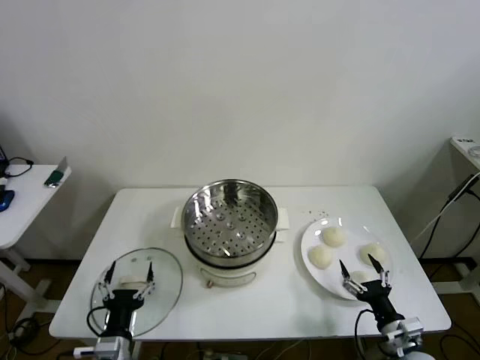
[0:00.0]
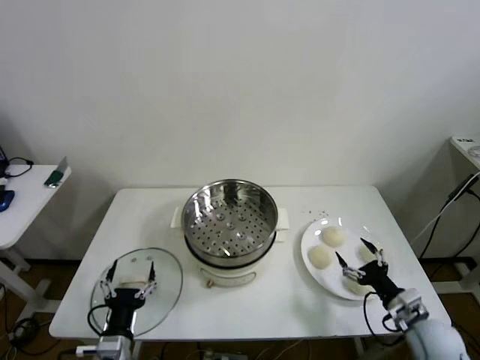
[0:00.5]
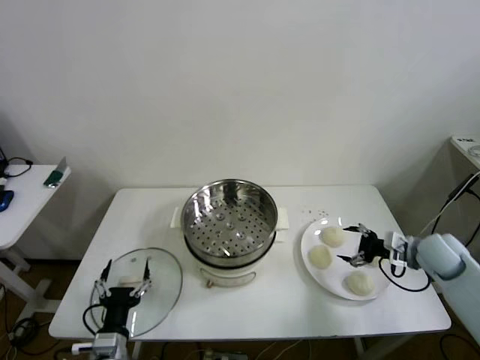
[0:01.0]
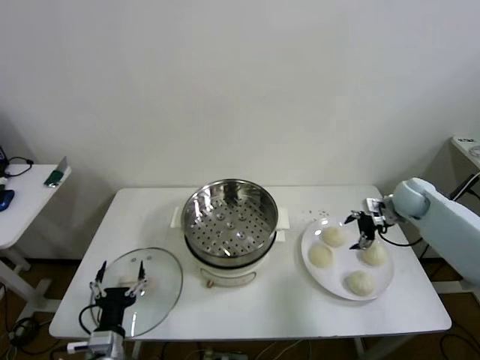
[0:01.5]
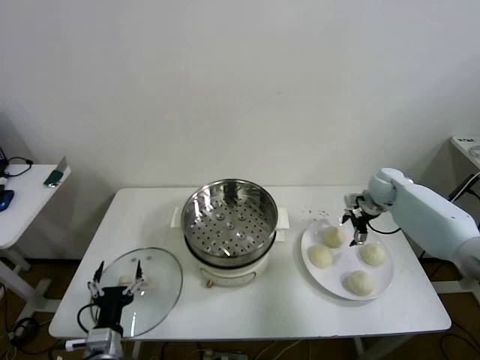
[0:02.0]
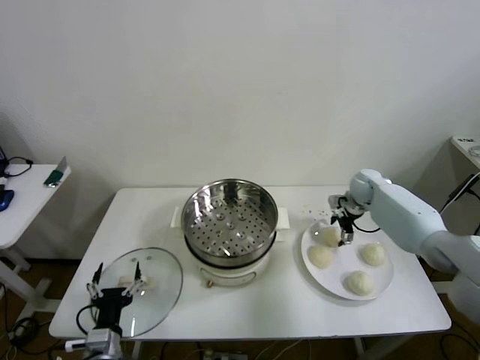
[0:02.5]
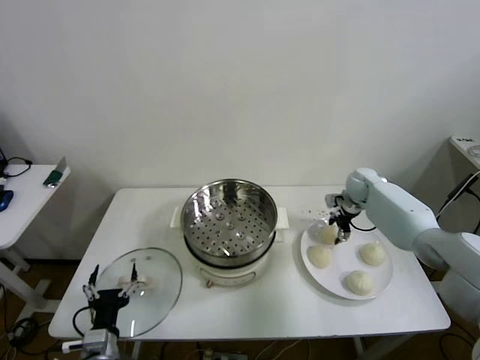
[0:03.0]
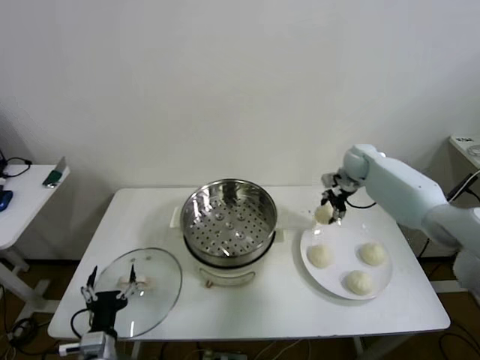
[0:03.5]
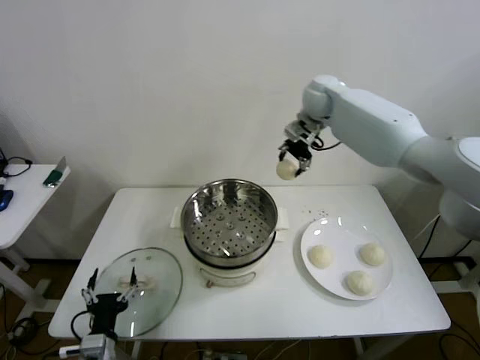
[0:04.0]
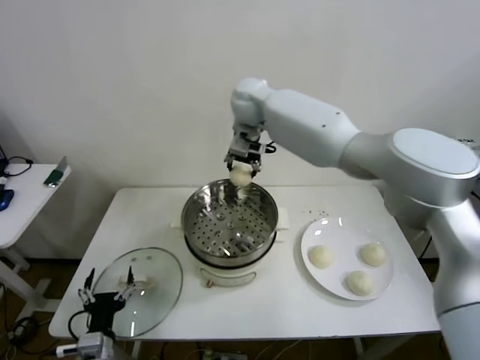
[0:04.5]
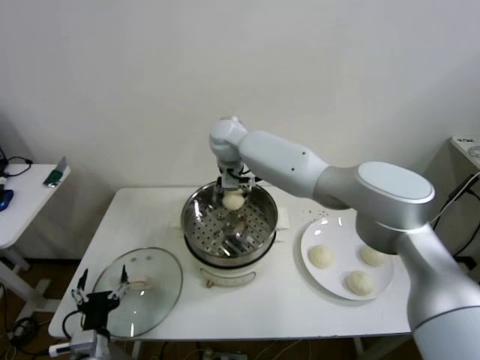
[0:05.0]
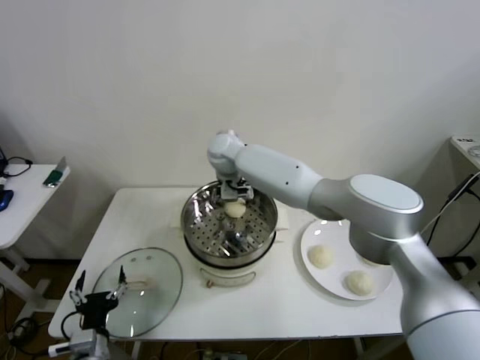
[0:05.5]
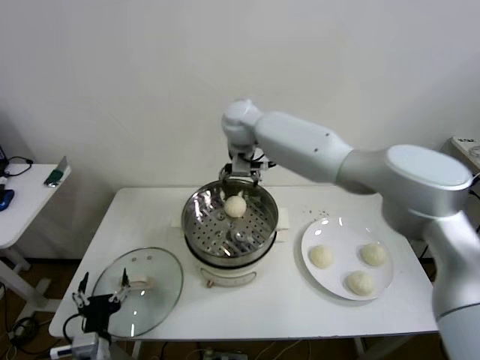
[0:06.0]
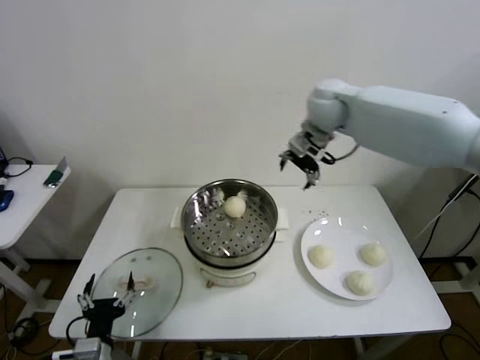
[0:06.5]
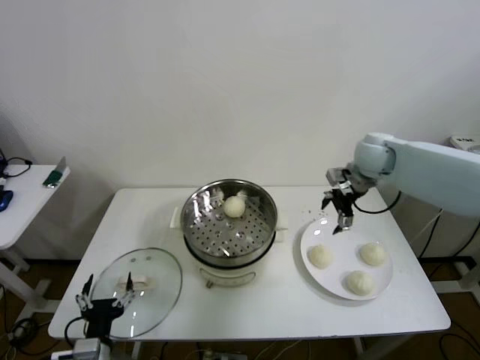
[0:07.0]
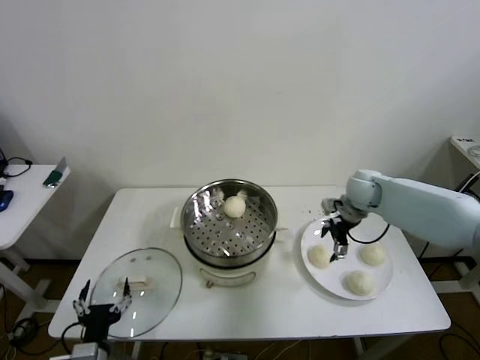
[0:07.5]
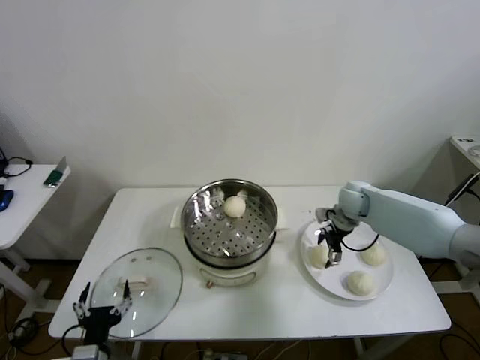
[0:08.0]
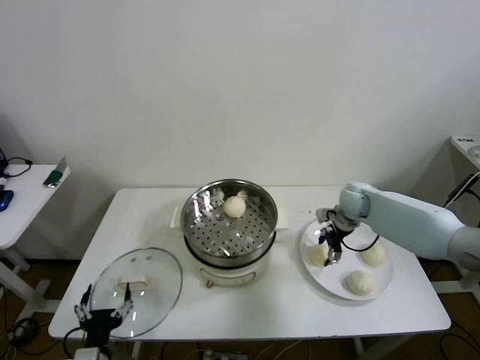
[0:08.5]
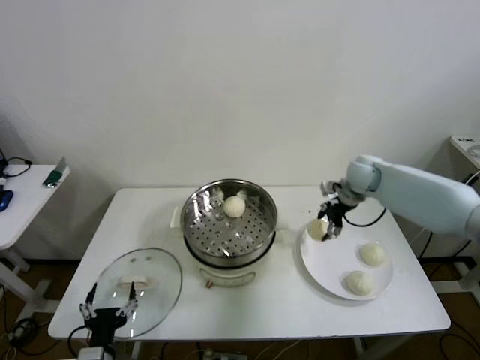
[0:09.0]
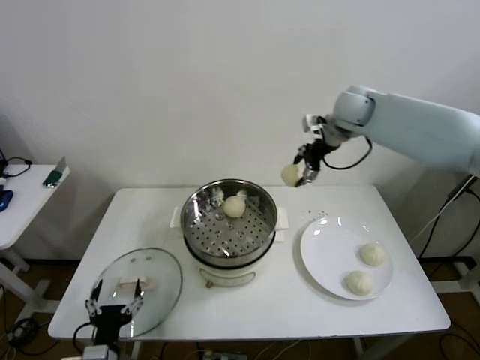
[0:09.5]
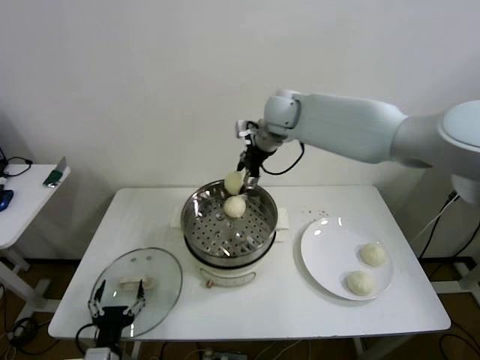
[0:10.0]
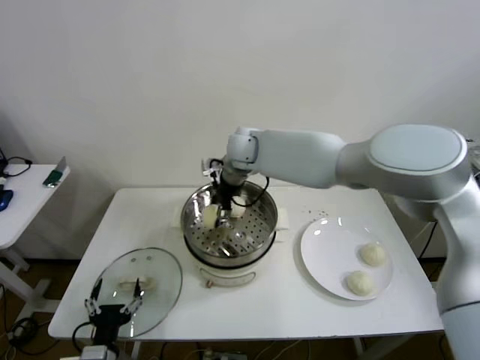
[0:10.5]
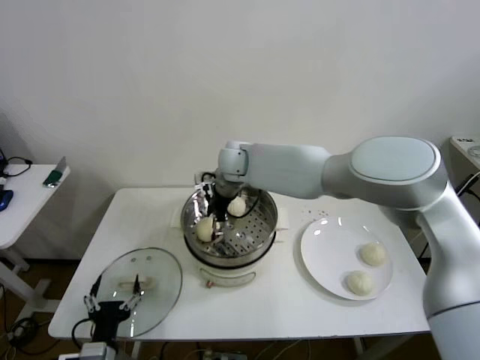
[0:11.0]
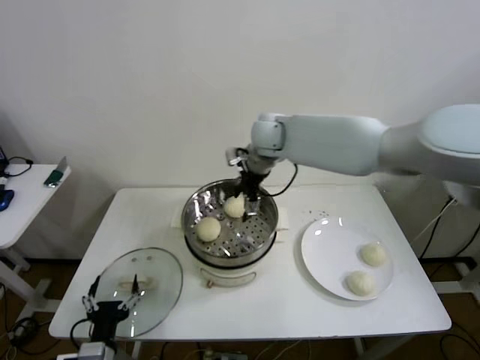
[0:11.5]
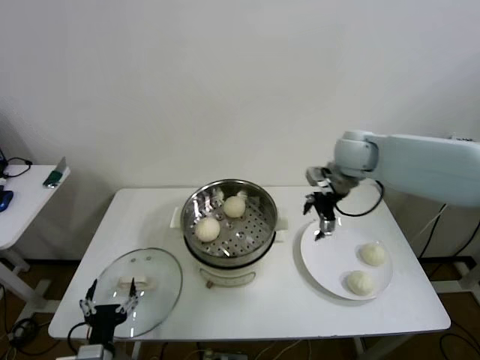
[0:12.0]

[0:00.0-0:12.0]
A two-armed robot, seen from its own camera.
Step, 0:00.0 to 0:02.5: Grasp the baozi in the plate with right gripper.
Step, 0:03.0 to 0:05.5: Place the baozi on the steamer with right gripper.
Step, 0:06.0 to 0:08.0: Grasp the baozi in the plate with right gripper.
Step, 0:08.5 to 0:11.0: Place the baozi on the steamer with right gripper.
0:02.0 to 0:04.0: The right gripper moves upward and to the left, some 35 cm, and closes up.
0:04.0 to 0:06.0: The right gripper heads to the left and backward, covering roughly 10 cm, and opens its fingers.
0:06.0 to 0:08.0: The right gripper shifts approximately 35 cm to the right and downward.
0:08.0 to 0:10.0: The right gripper goes approximately 35 cm to the left and upward, and closes up.
0:10.0 to 0:12.0: The right gripper travels to the right by about 20 cm, and opens up.

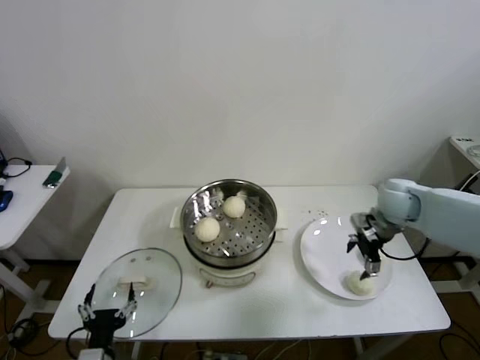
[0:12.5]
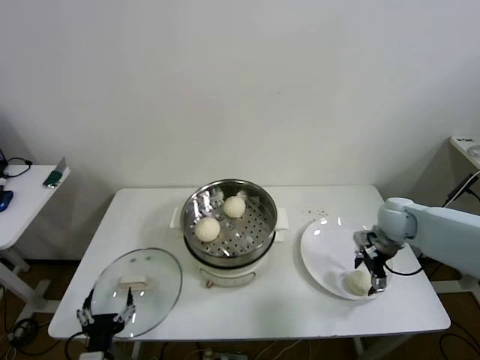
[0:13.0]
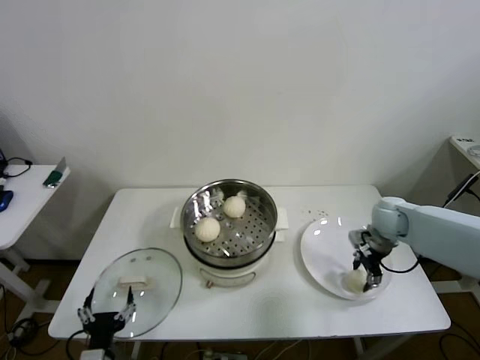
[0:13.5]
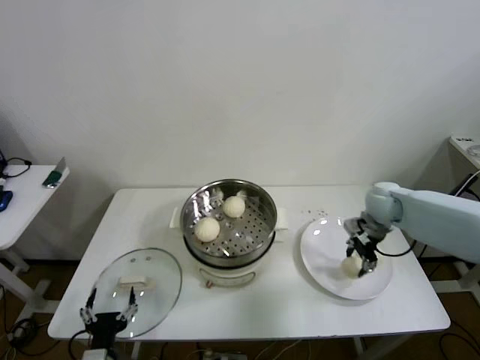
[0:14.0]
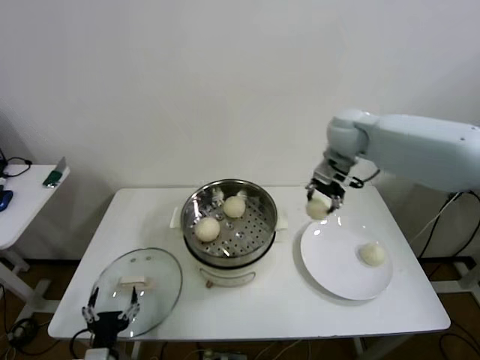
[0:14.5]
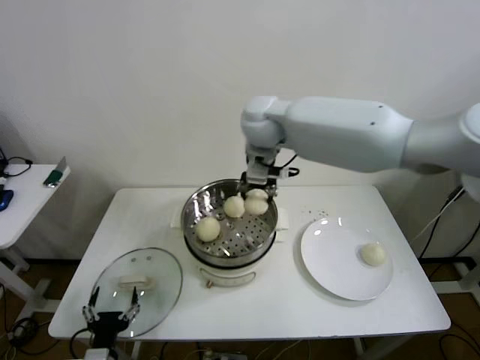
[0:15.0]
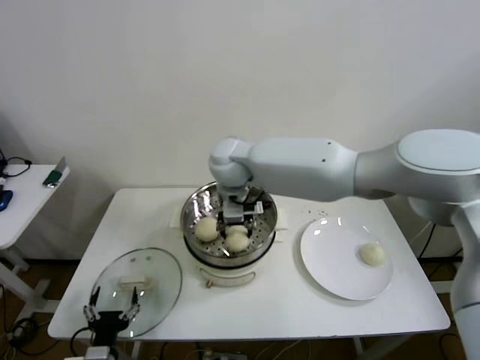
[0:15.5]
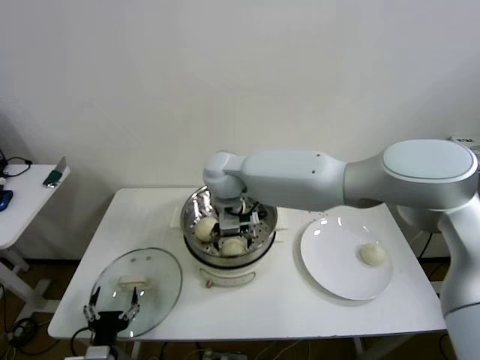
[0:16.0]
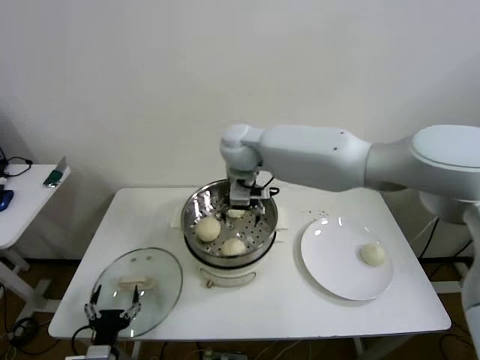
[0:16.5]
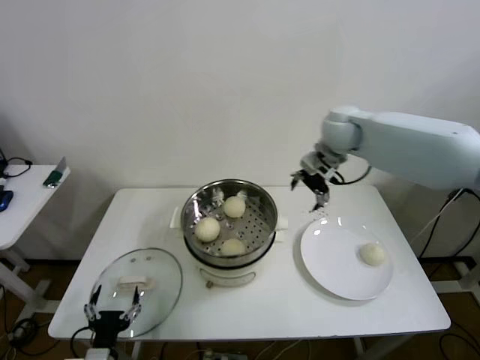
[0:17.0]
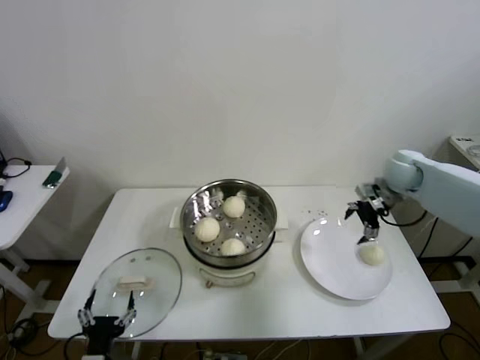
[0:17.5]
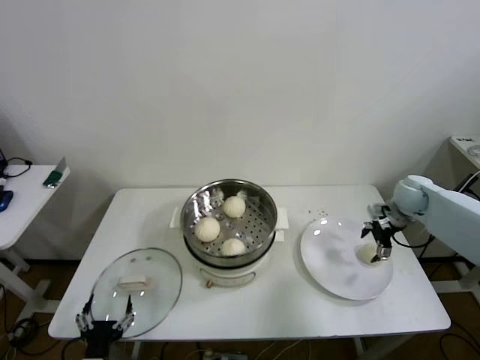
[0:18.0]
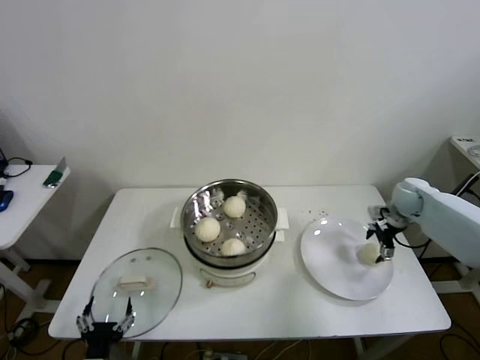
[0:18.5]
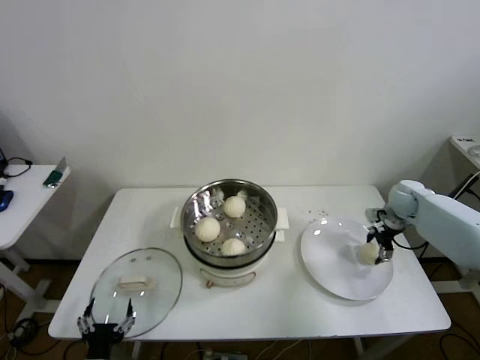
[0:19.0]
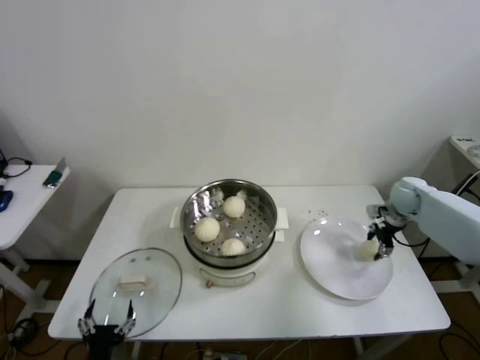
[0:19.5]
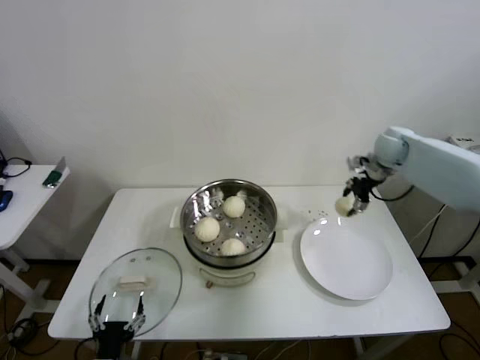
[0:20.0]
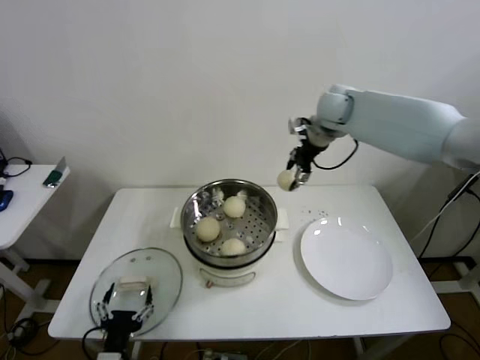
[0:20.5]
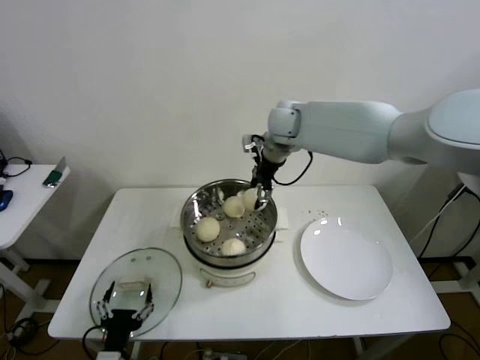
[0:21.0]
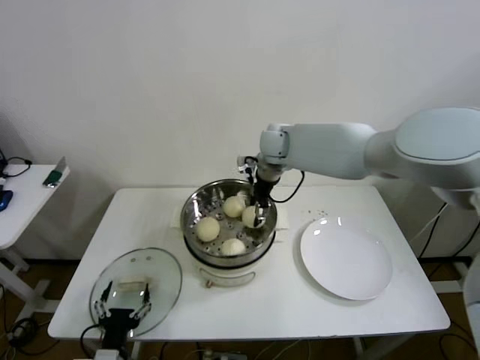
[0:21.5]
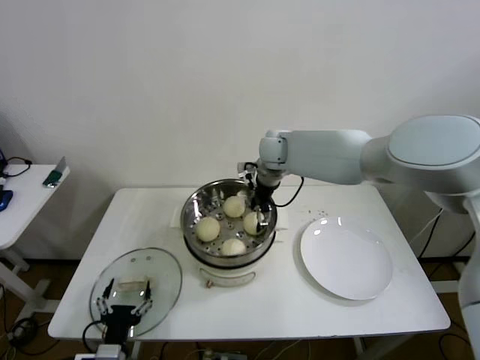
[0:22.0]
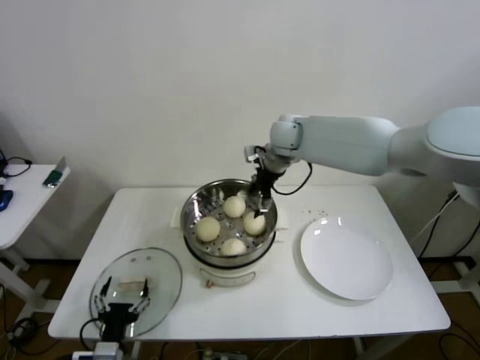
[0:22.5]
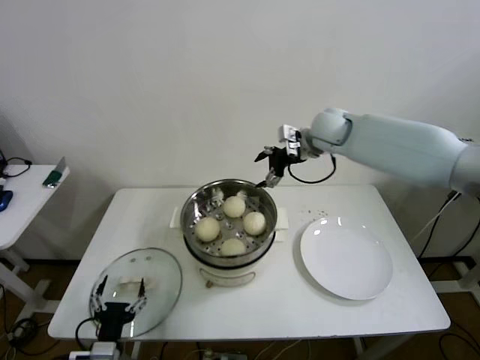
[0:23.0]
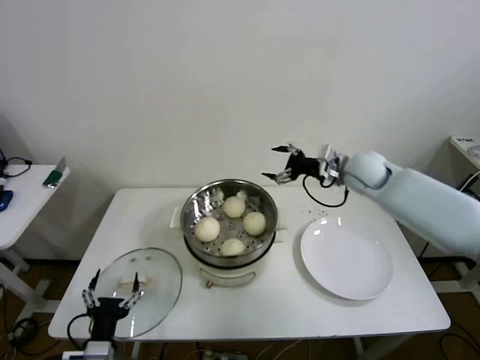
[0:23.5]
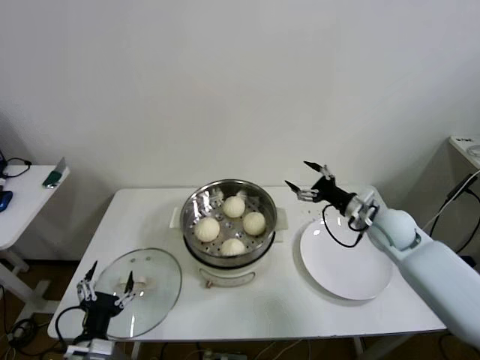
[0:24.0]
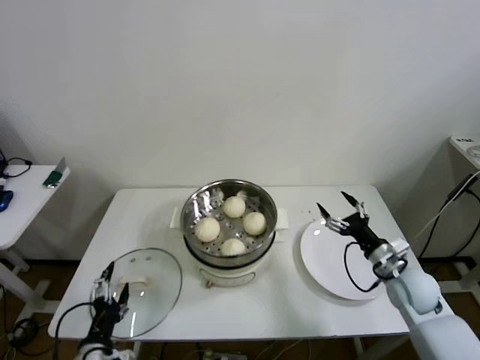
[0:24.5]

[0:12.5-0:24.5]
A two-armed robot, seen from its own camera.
Step, 0:14.0 to 0:16.0: Place the baozi on the steamer with right gripper.
Step, 0:16.5 to 0:19.0: Grasp the baozi in the plate with right gripper.
Step, 0:19.5 to 0:22.0: Place the baozi on the steamer with right gripper.
0:12.5 to 0:14.5: The right gripper shifts roughly 25 cm upward, to the left and forward, and closes.
0:14.5 to 0:16.5: The right gripper shifts roughly 20 cm to the left, and opens its fingers.
0:16.5 to 0:18.5: The right gripper goes approximately 50 cm to the right and downward.
0:18.5 to 0:20.5: The right gripper goes some 35 cm to the left and upward, and closes its fingers.
0:20.5 to 0:22.5: The right gripper goes some 10 cm to the left and downward, and opens its fingers.
0:22.5 to 0:24.5: The right gripper is displaced backward, to the right and downward by some 40 cm.

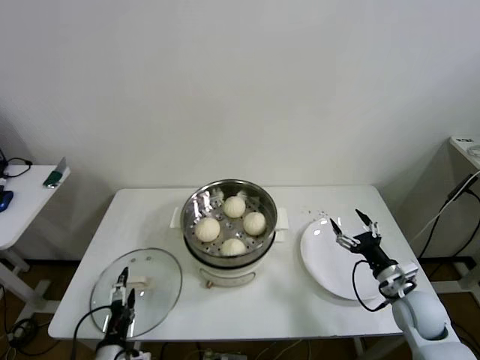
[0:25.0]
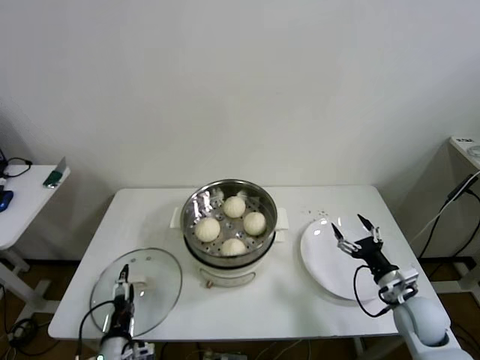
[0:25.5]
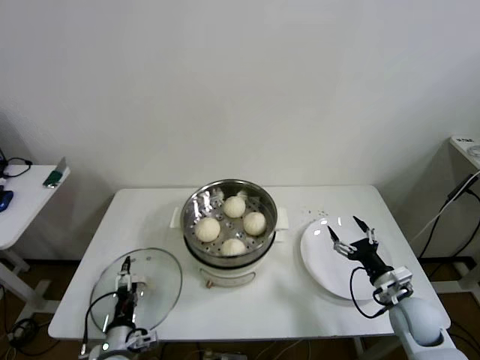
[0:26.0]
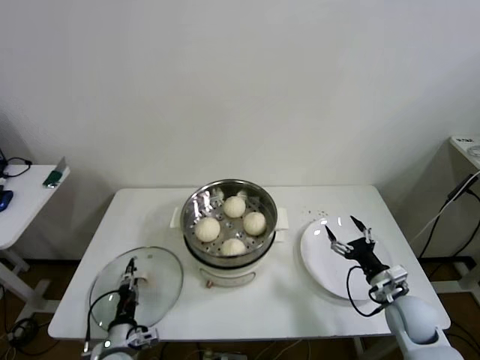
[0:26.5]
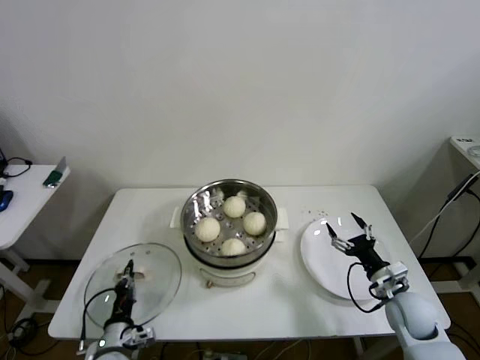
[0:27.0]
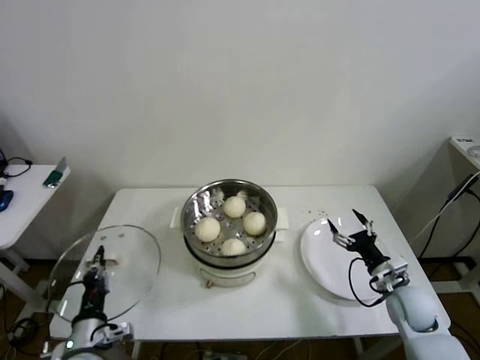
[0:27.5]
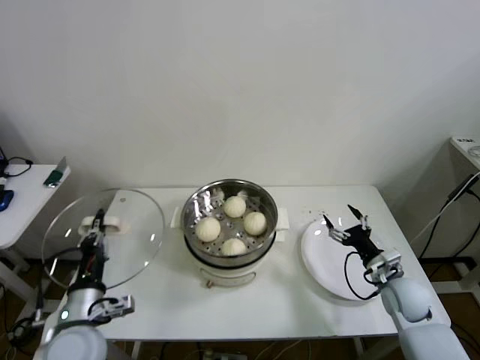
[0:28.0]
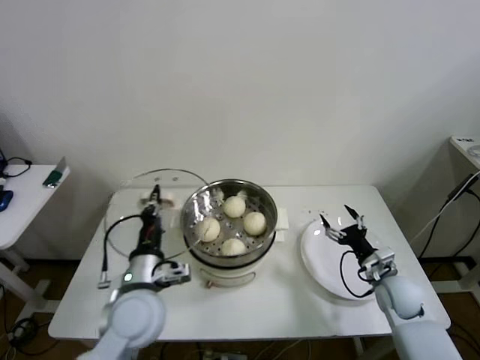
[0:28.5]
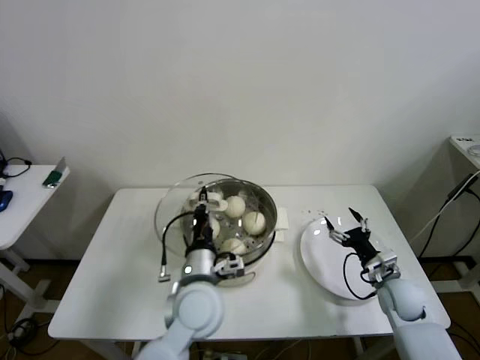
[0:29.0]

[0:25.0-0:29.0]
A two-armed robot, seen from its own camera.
0:25.0 to 0:27.0: The left gripper moves forward, about 5 cm, and closes.
0:27.0 to 0:29.0: The left gripper is displaced to the right, upward and forward by approximately 30 cm.
